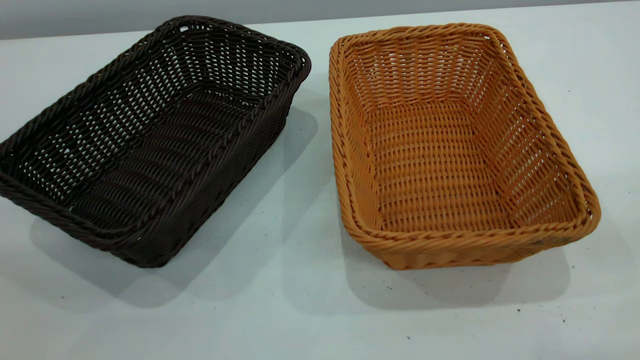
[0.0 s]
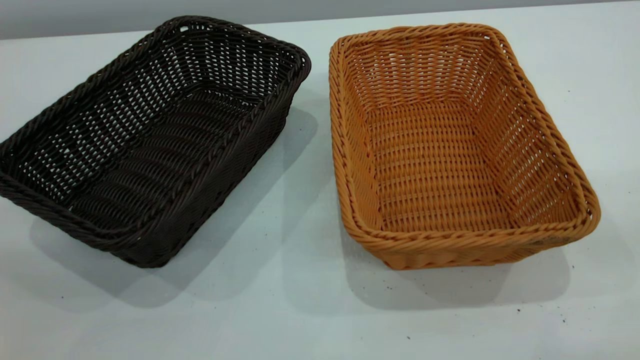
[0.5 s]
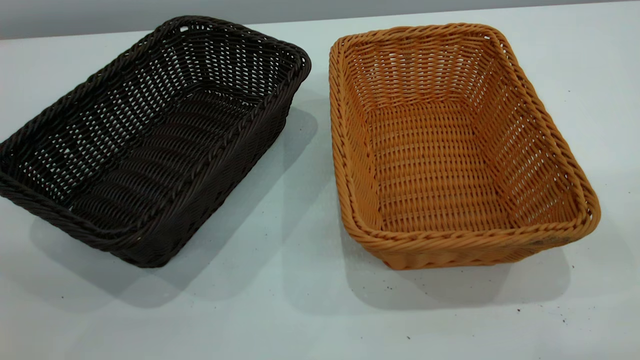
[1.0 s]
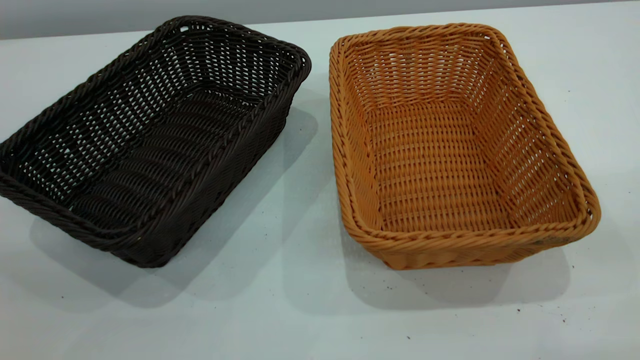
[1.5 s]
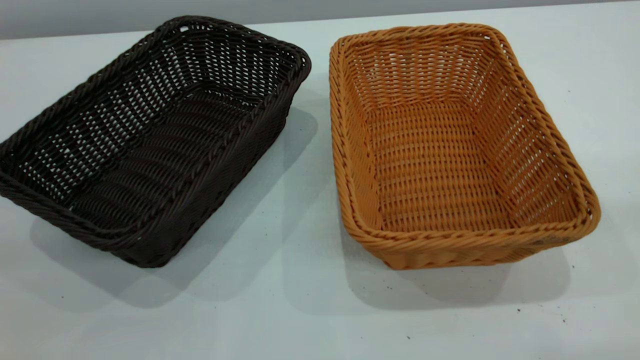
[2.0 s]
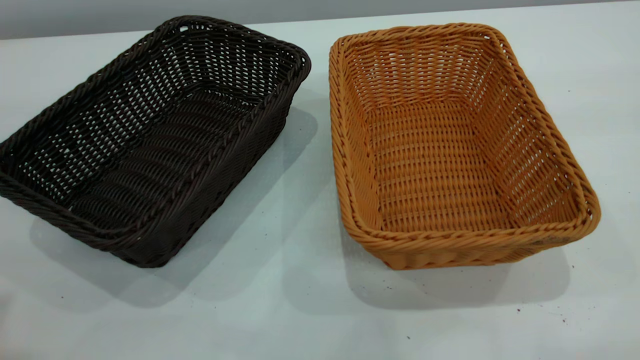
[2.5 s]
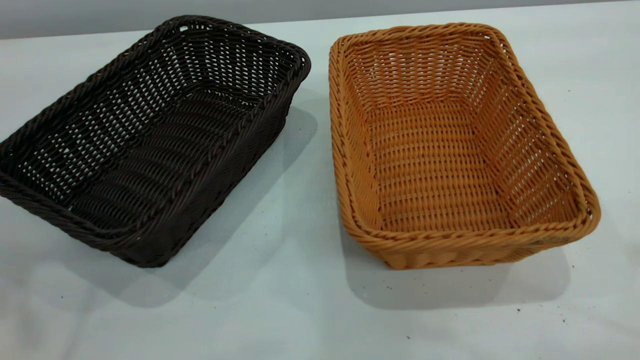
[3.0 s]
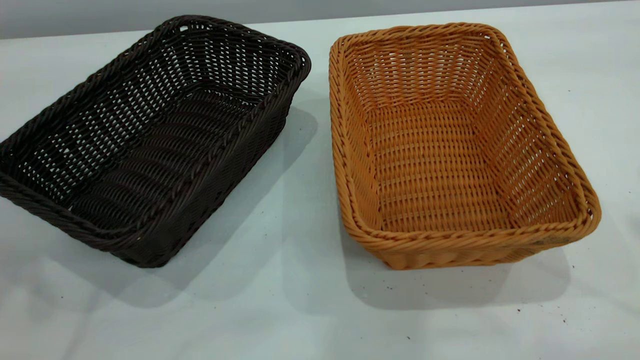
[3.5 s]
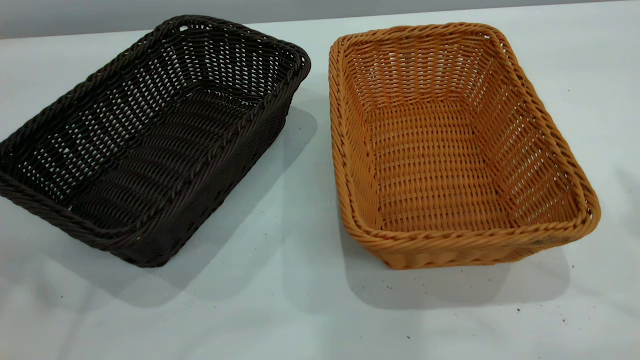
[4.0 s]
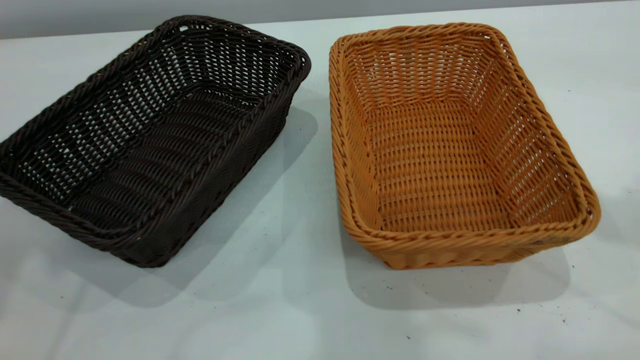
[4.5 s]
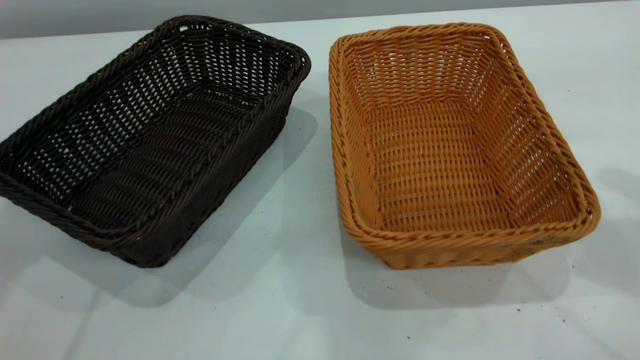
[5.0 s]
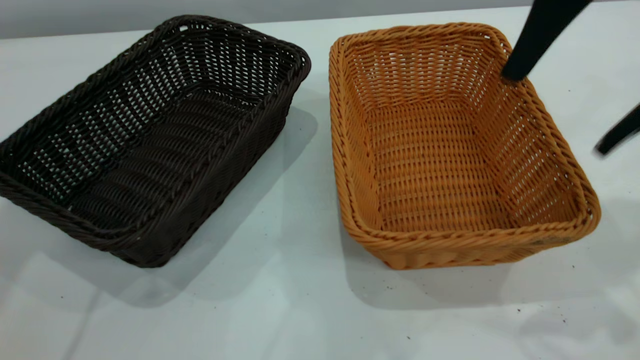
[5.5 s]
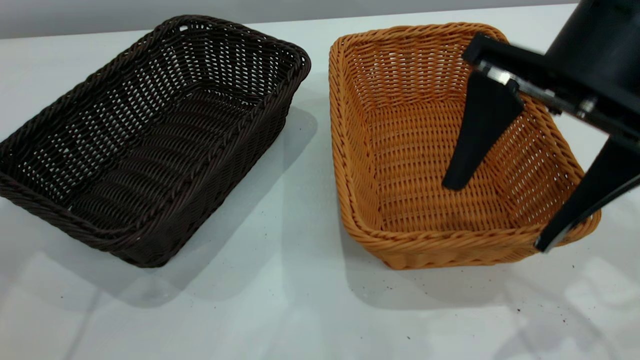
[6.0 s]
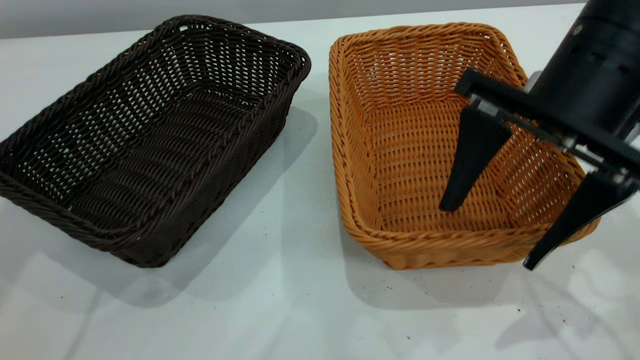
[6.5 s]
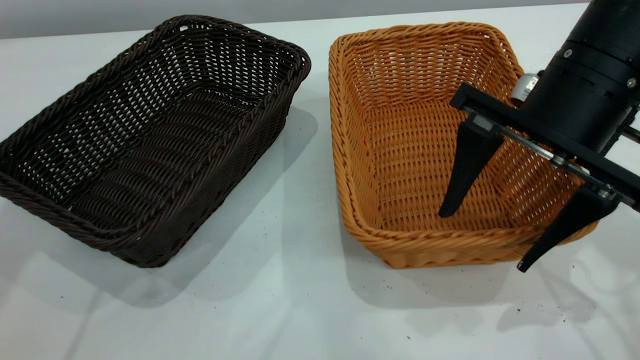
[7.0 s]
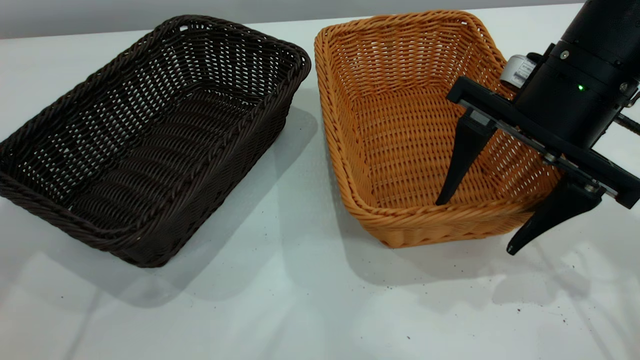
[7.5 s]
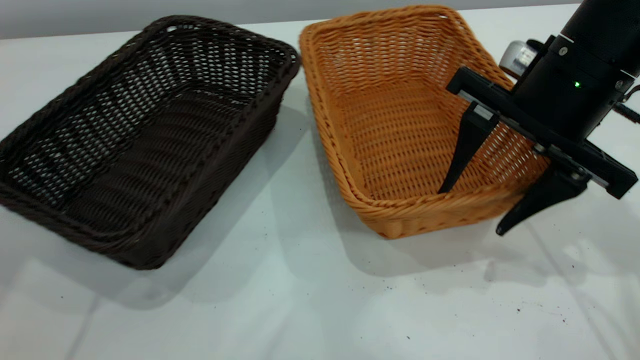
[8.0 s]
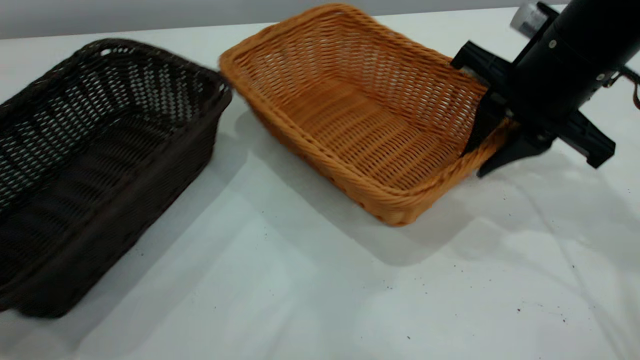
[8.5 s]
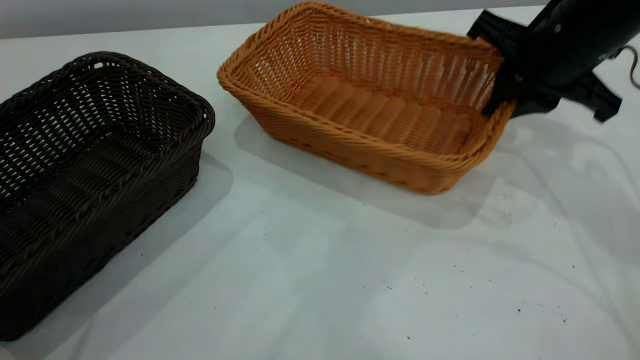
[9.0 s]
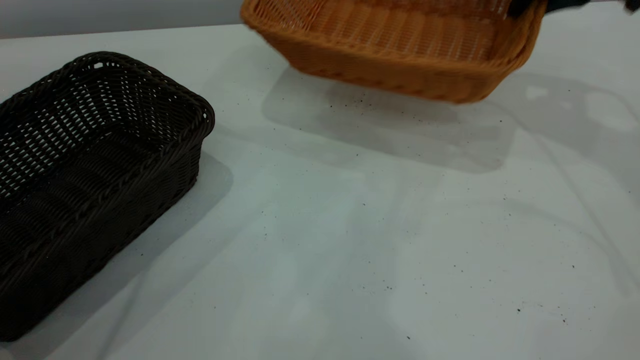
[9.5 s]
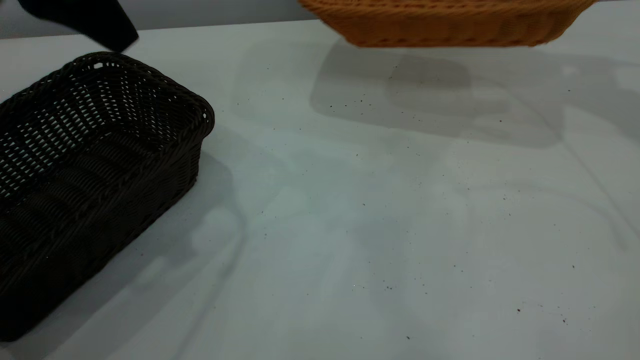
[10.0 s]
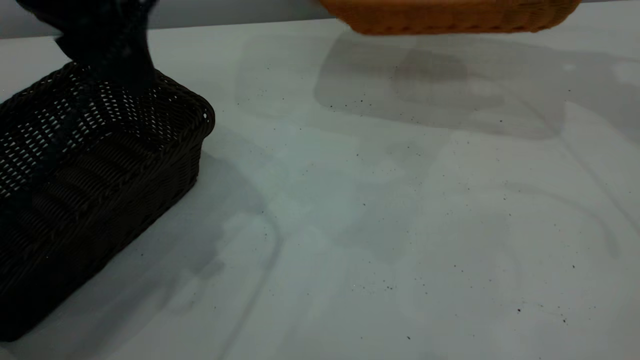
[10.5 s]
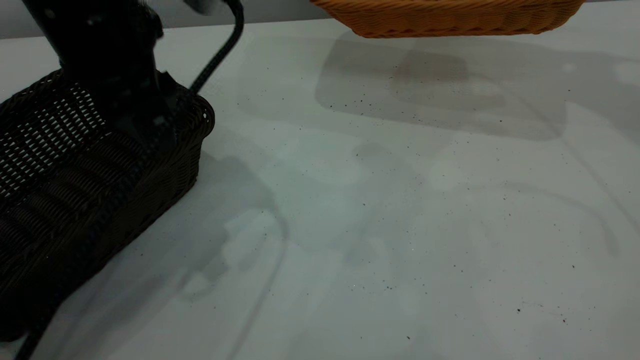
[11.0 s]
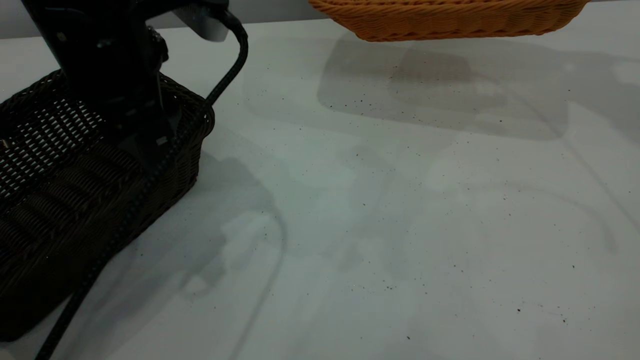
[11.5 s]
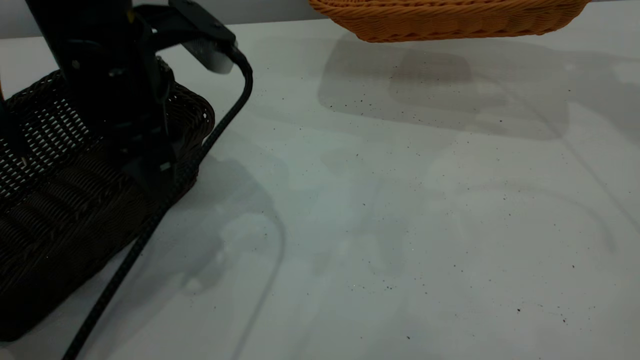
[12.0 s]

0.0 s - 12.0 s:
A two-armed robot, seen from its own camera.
Task of the whole recording: the left gripper grasp the black basket and place it in the center of the table, the right gripper grasp the brown basket and place it inside the black one.
Step, 0.0 s - 9.0 s: Pick up the light basket with the right gripper.
4.0 s - 6.0 s: The right gripper shifts roughly 25 cm downward and to the left.
6.0 s - 8.0 s: The right gripper shifts by roughly 5 cm.
8.0 s - 10.0 s: The right gripper travels forward, upward and to the right by some 25 cm, and closes its fingers. The left gripper shifts approximately 15 cm to the right and backward.
10.0 s - 12.0 s: The left gripper heads downward, covering some 10 cm.

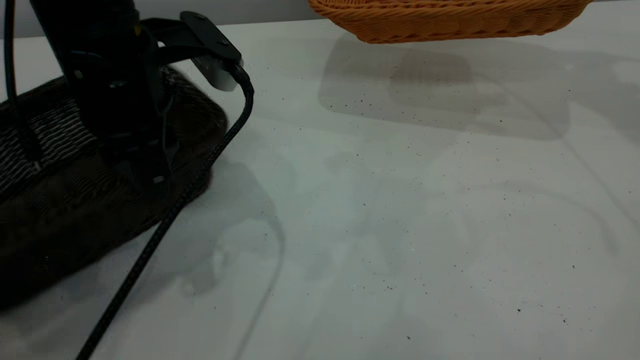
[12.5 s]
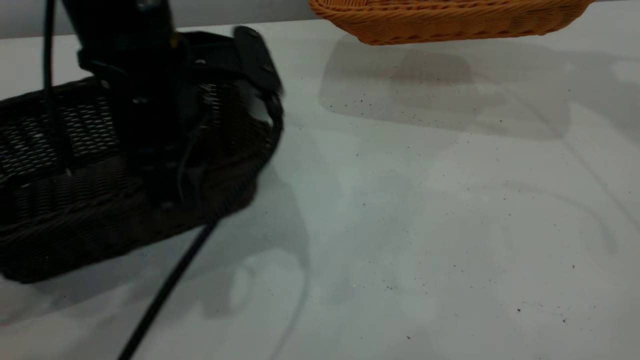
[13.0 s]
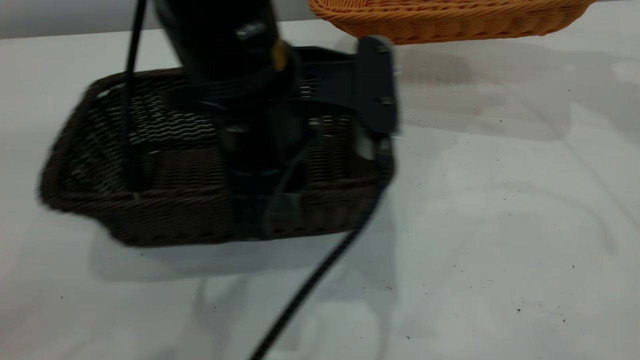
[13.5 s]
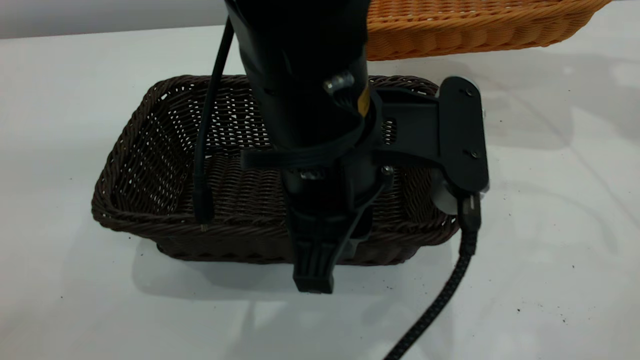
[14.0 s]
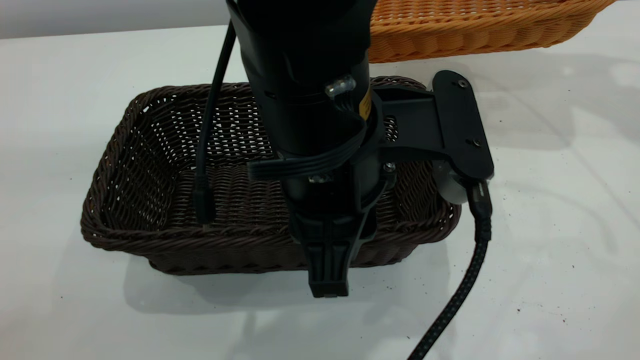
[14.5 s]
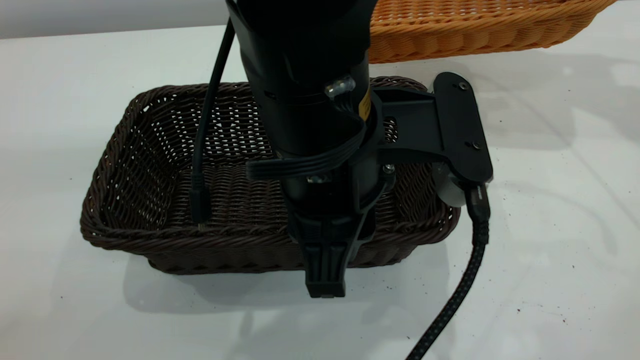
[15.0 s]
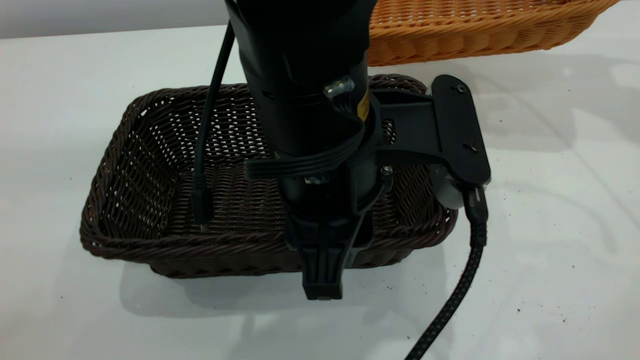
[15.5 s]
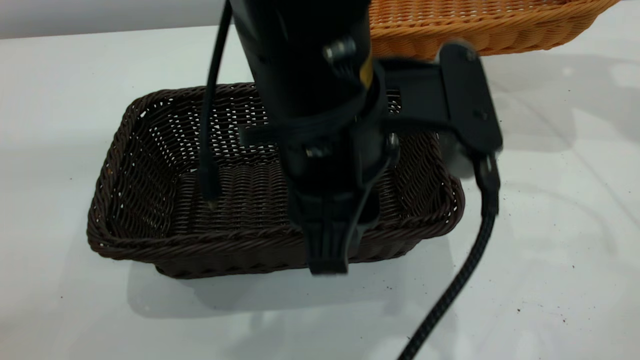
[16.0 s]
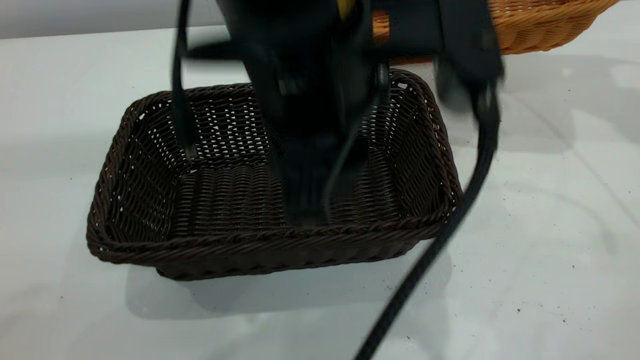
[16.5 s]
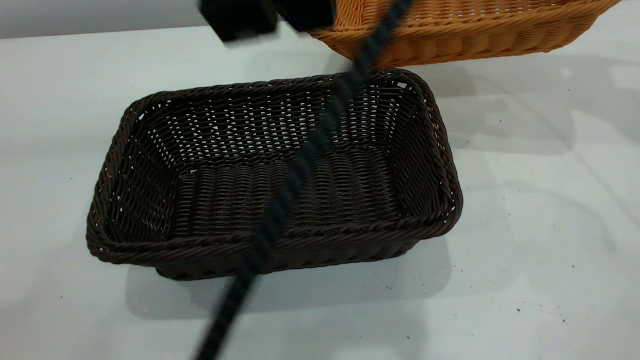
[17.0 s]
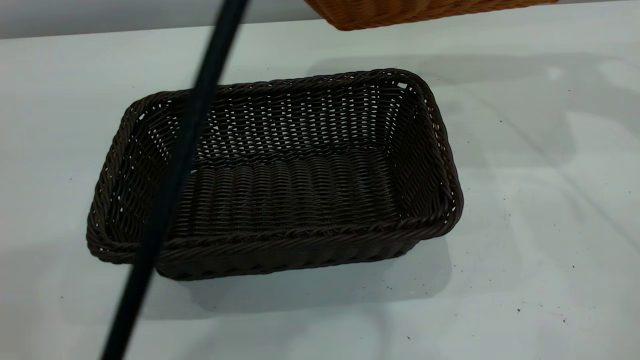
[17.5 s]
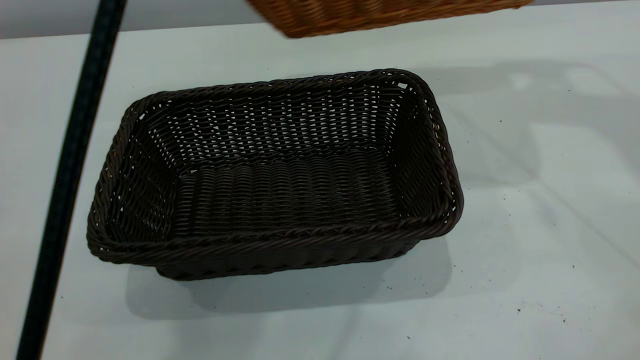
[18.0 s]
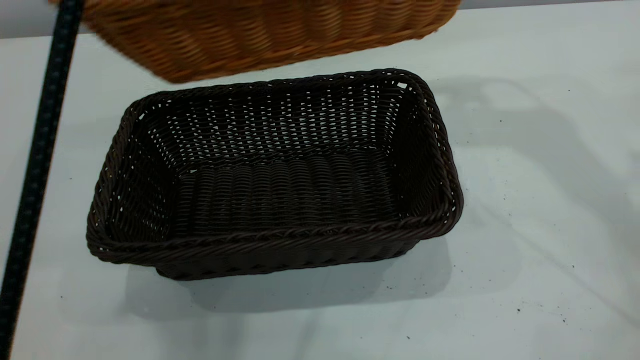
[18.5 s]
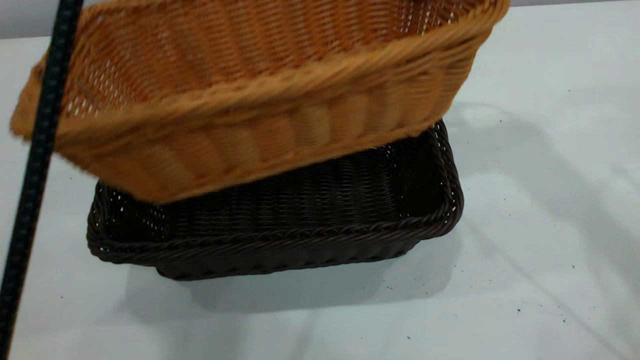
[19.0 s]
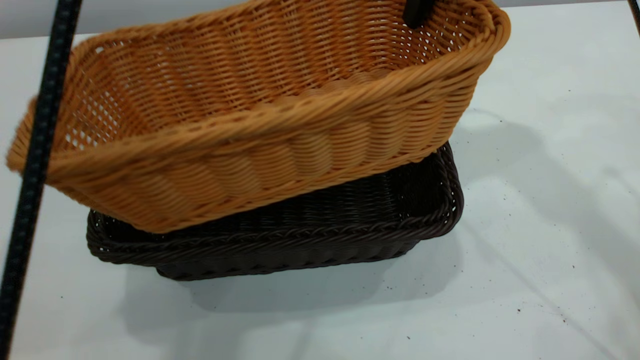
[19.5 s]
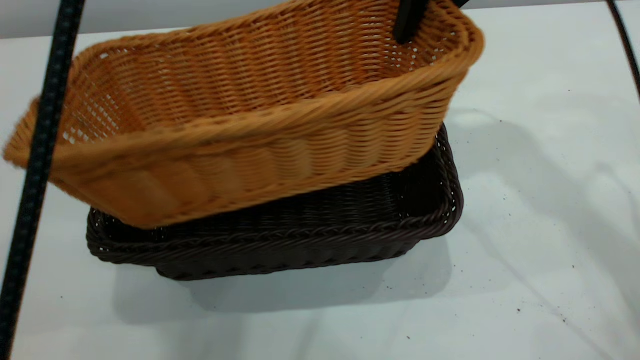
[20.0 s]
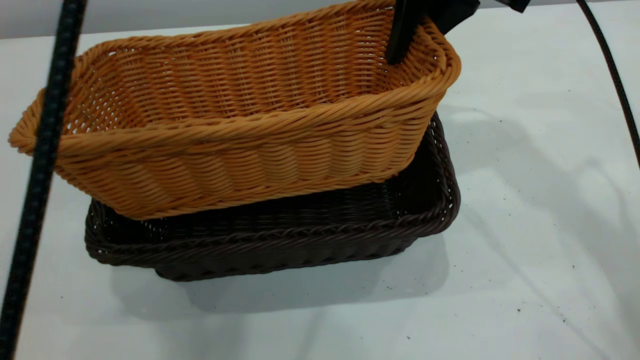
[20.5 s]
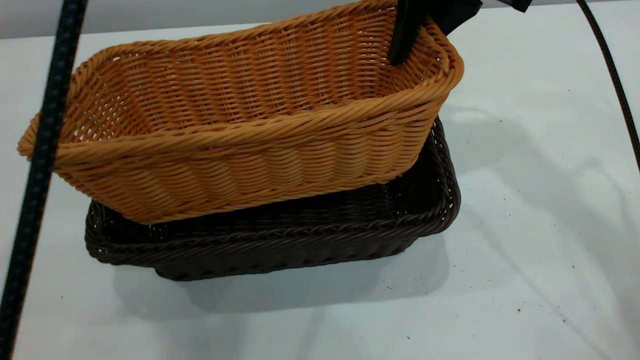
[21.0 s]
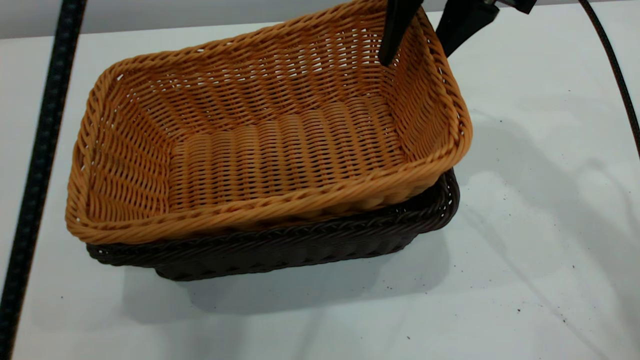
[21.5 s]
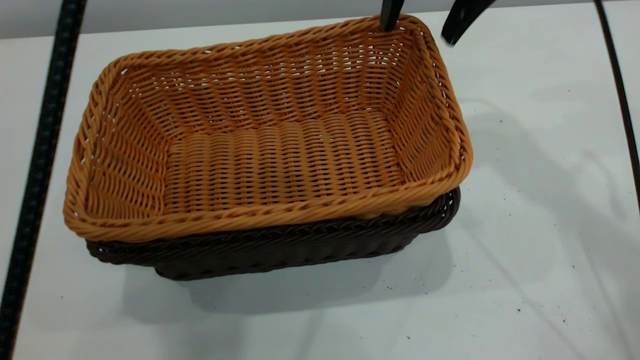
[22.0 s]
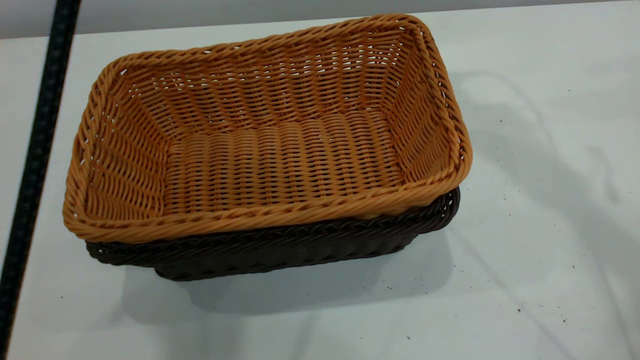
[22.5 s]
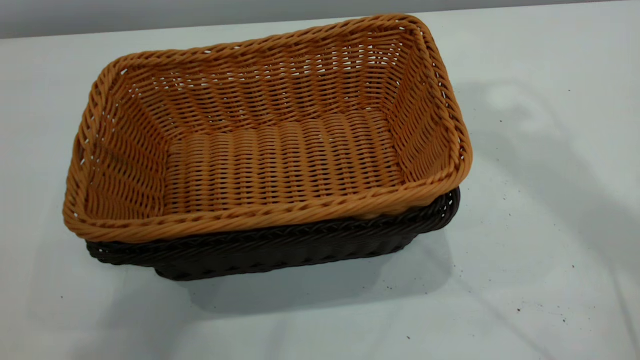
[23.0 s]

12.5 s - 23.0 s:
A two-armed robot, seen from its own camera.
Task of the whole recording: the left gripper grasp the black basket and place it in the center of the table, the right gripper grasp the brown basket and place it inside the black one.
Step, 12.5 s - 16.5 s: Move the dark basket to the center of view.
Step, 17.0 s - 22.0 s: Place the light basket on the dark basket.
12.5 s - 14.5 s: The left gripper moves to the right and backward, some 15 cm.
14.5 s - 16.5 s: The left gripper heads upward, covering about 5 cm.
16.5 s - 19.0 s: The left gripper is displaced upward and to the left by roughly 20 cm, and closes its fingers. Meanwhile the right gripper is displaced to the left by about 15 cm.
19.0 s - 21.0 s: The right gripper is displaced downward by approximately 5 cm.
21.0 s - 23.0 s: The right gripper heads upward, covering some 20 cm, and opens, then closes again, while the left gripper goes some 5 cm upward.
